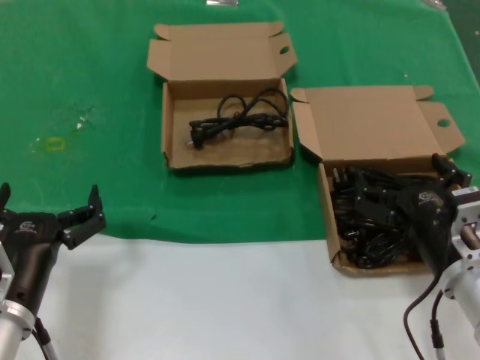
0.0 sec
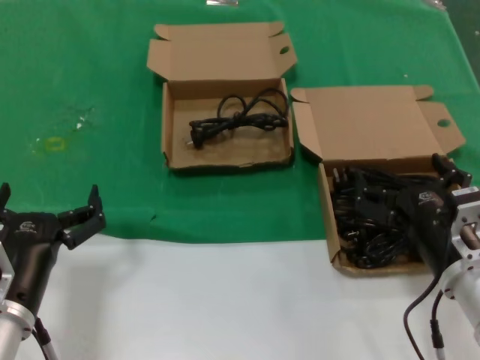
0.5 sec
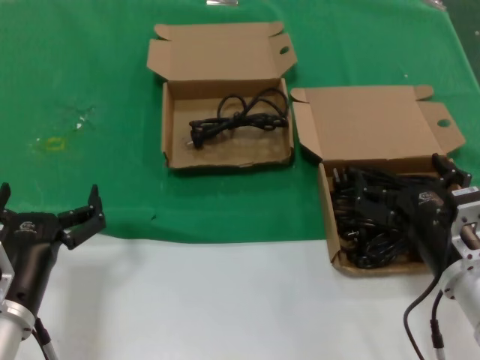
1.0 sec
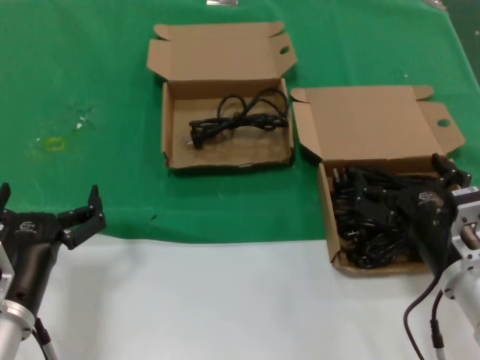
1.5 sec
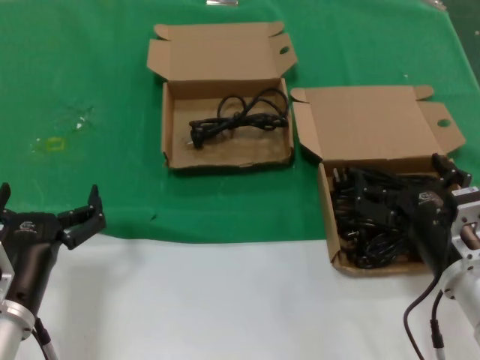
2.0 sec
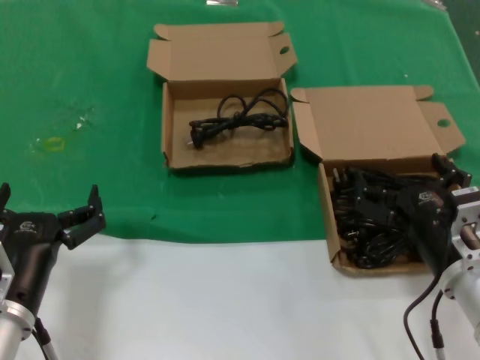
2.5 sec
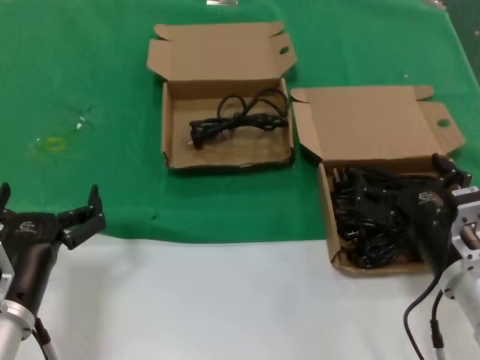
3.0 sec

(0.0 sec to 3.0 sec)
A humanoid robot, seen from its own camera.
Task of the whole recording: take the parts from the box containing them and put them into an empty box.
0.0 sec - 3.0 sec: The two hands keep their place.

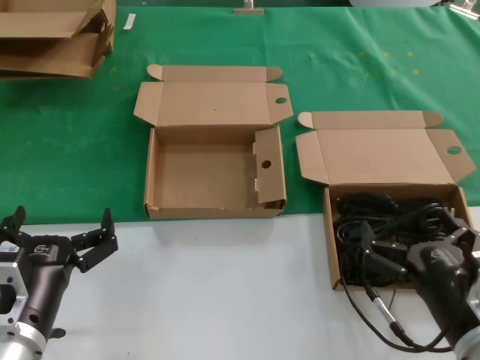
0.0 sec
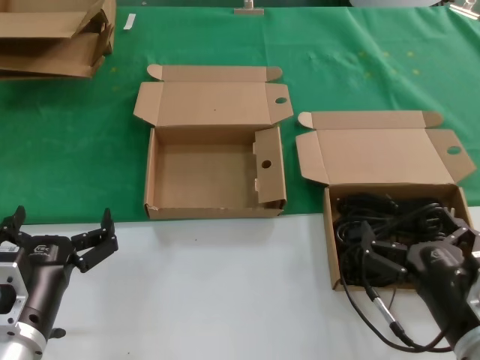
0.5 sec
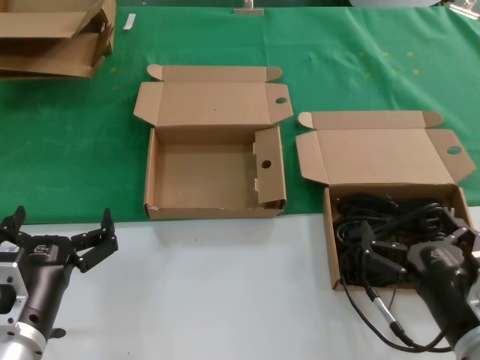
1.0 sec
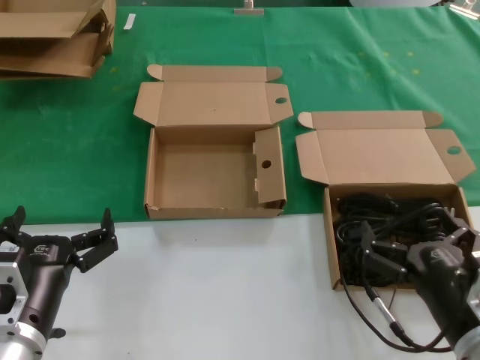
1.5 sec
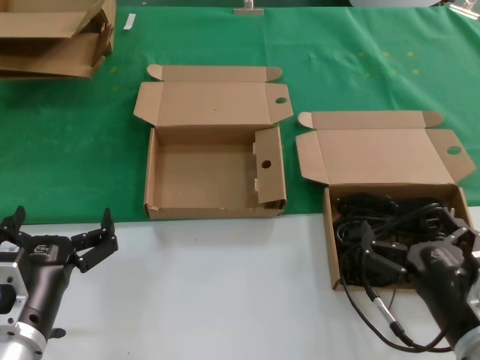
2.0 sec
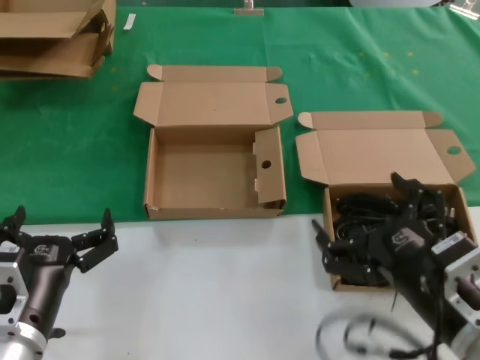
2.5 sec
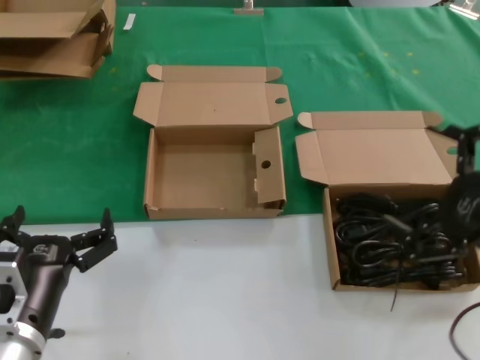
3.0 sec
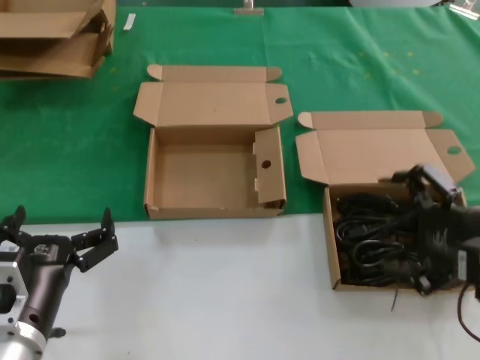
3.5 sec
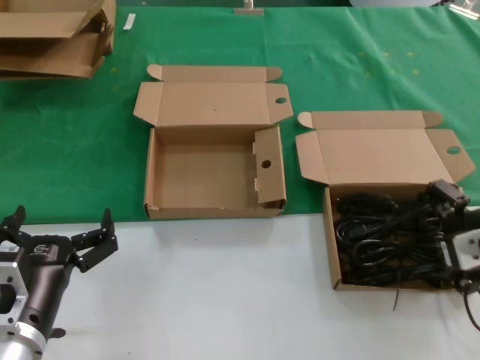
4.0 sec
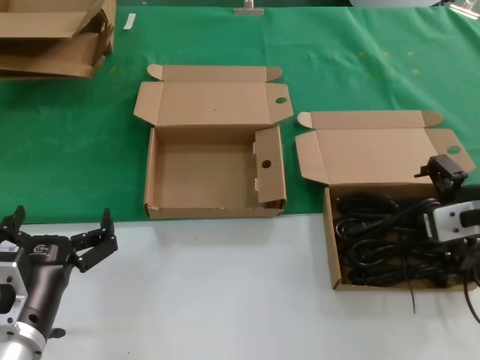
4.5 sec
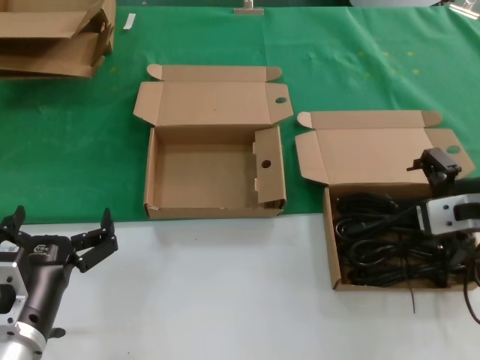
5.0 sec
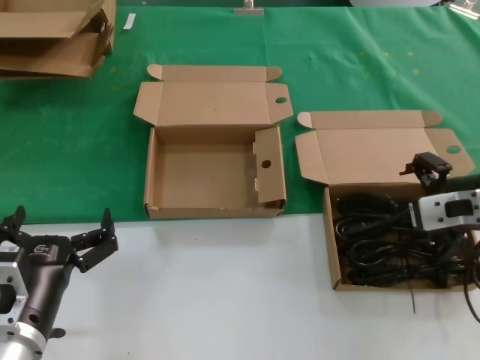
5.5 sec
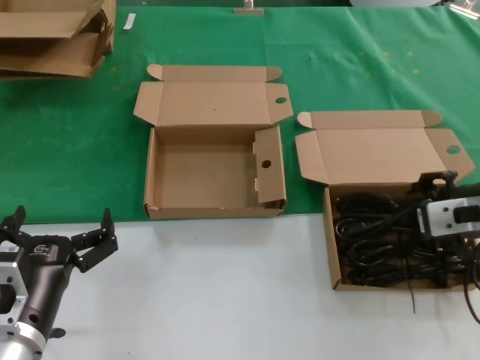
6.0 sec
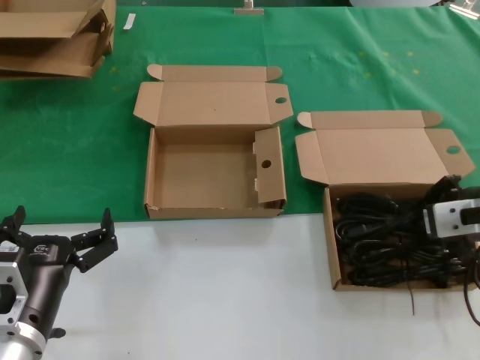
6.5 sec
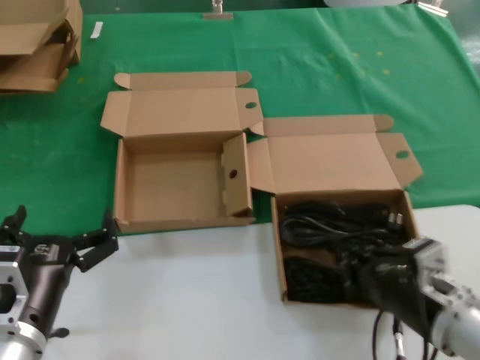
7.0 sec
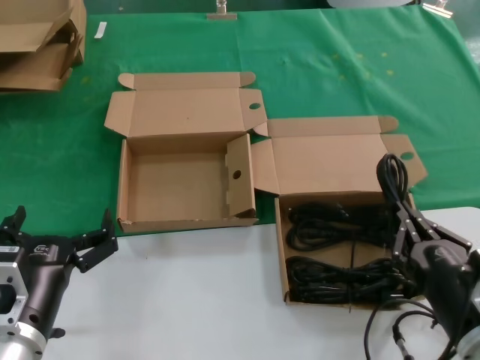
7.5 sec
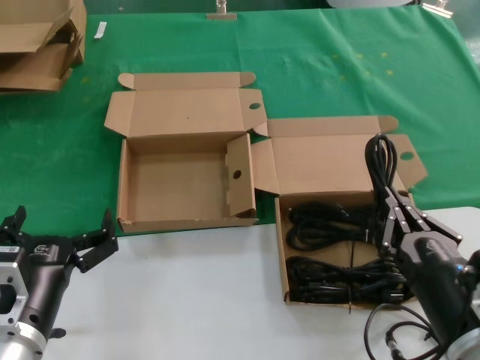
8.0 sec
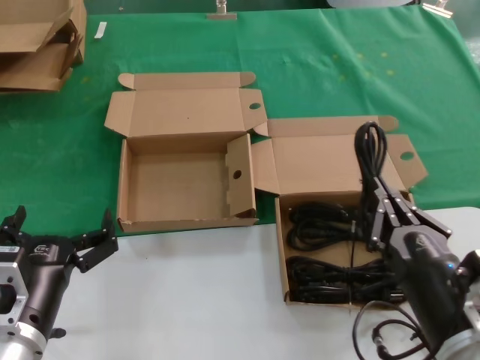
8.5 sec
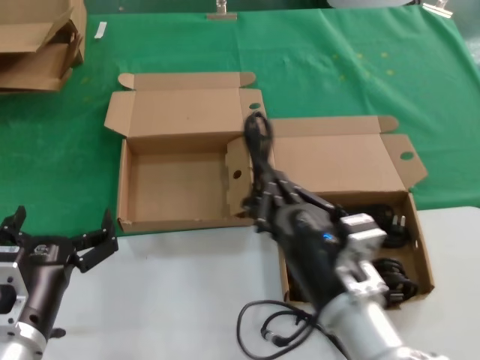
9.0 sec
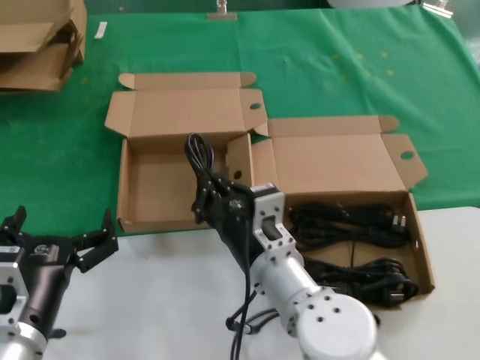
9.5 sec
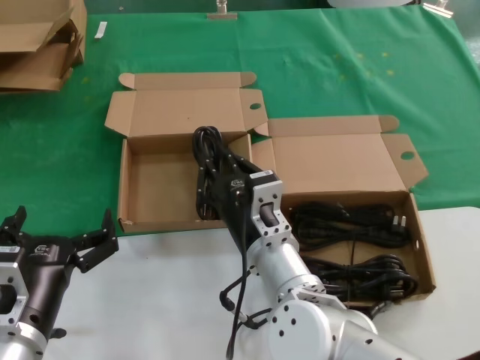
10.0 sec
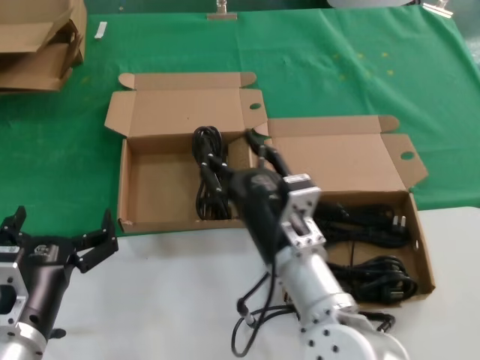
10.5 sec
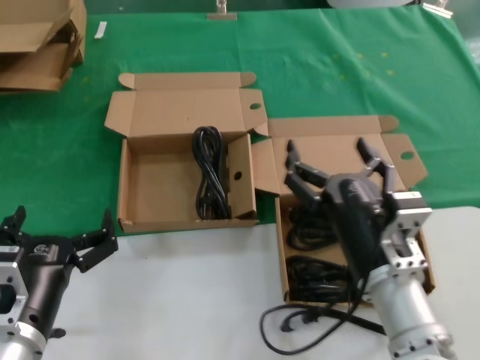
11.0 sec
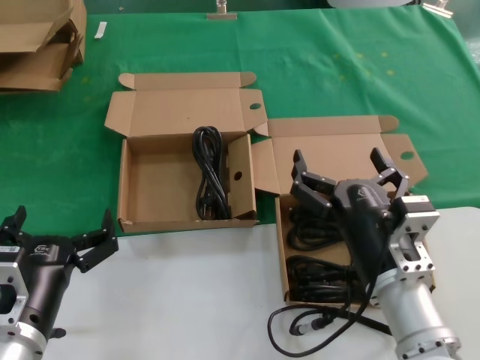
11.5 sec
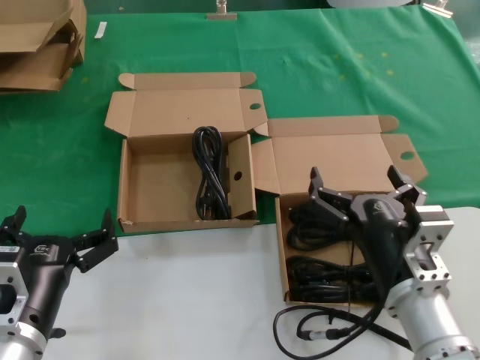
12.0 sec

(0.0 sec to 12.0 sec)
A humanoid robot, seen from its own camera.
Task of the whole recording: take the parts from the box containing them and put them into an empty box.
Step, 0.0 sec - 6.0 sec: Grasp the data cable.
Step, 7.0 sec - 9.5 sec: Place the data cable in the another box.
0.0 sec - 2.0 sec: Neither hand changes place.
2.0 sec - 4.0 sec: The right hand heads upward, forward and to the right, covering some 20 cm.
4.0 sec - 6.0 sec: The hands move only a little.
6.0 sec - 8.0 sec: The right hand heads downward and backward, covering about 20 cm.
8.0 sec - 10.0 sec: The right hand moves to the left and forward, some 25 cm.
10.0 sec - 12.0 sec: The right hand travels to the right and backward by some 15 cm.

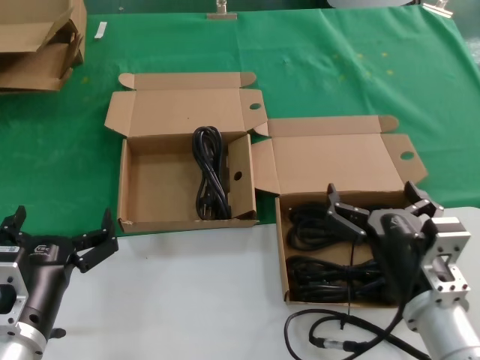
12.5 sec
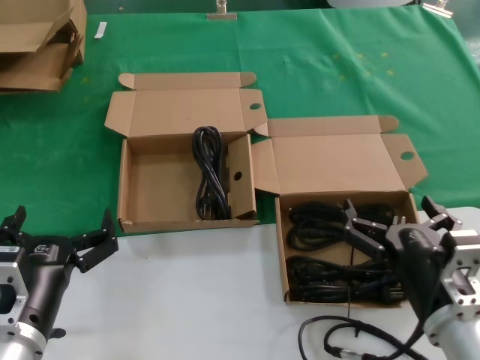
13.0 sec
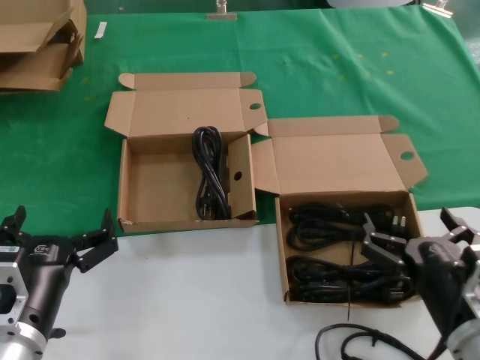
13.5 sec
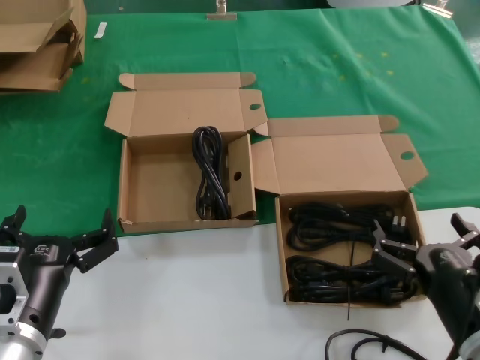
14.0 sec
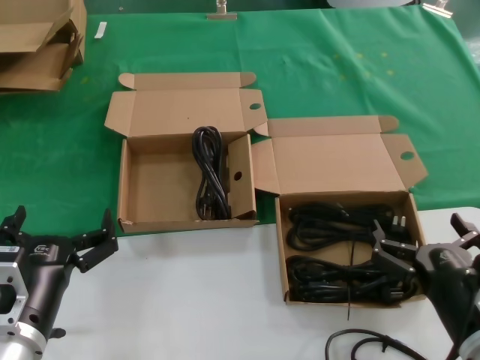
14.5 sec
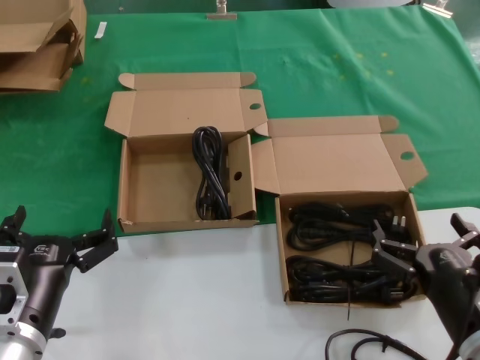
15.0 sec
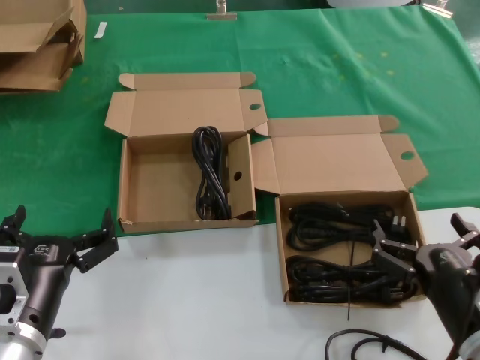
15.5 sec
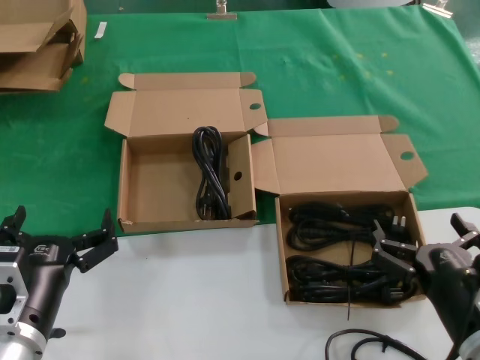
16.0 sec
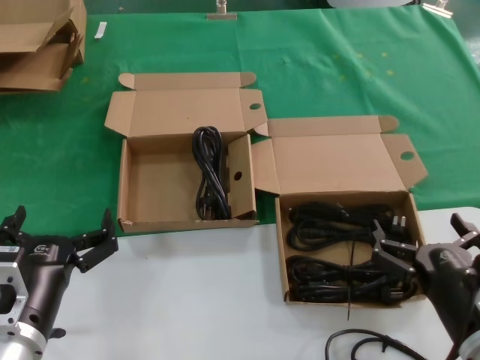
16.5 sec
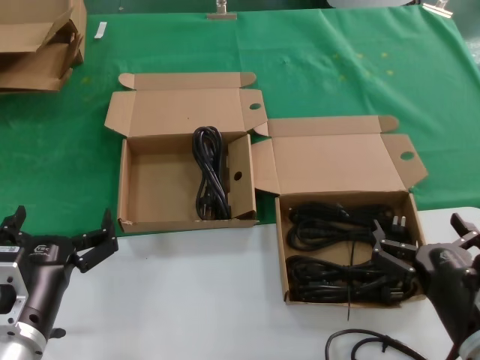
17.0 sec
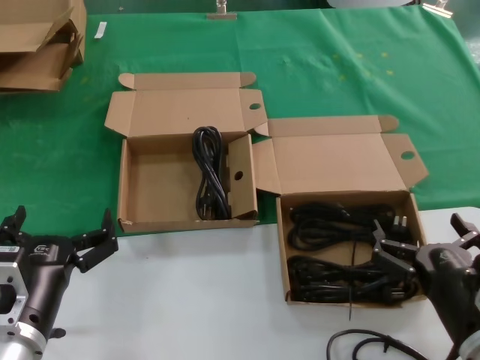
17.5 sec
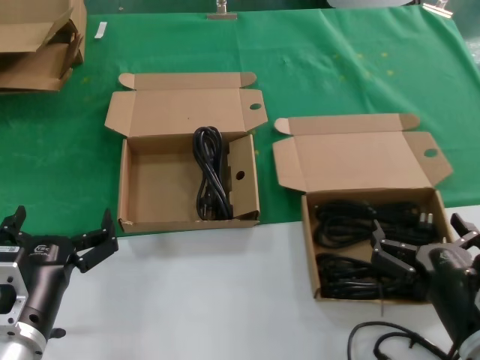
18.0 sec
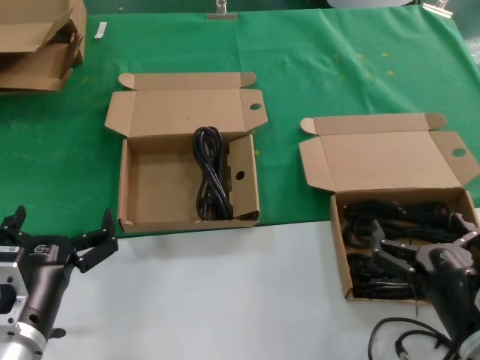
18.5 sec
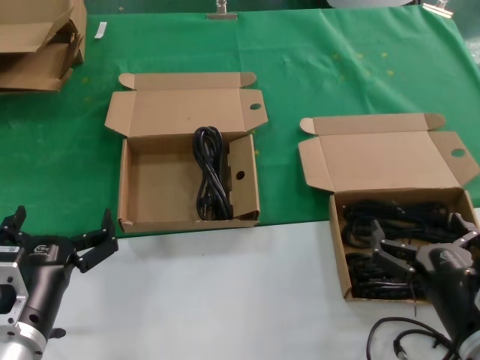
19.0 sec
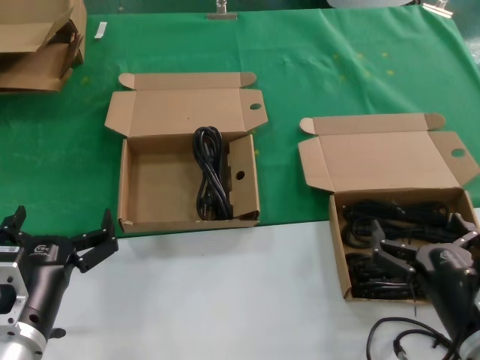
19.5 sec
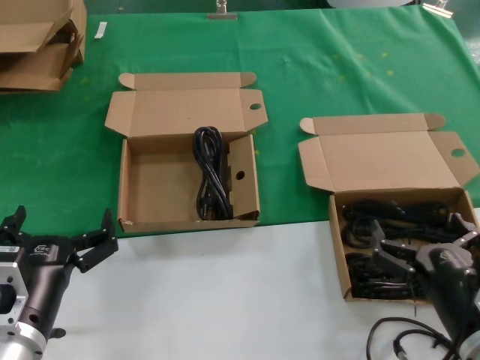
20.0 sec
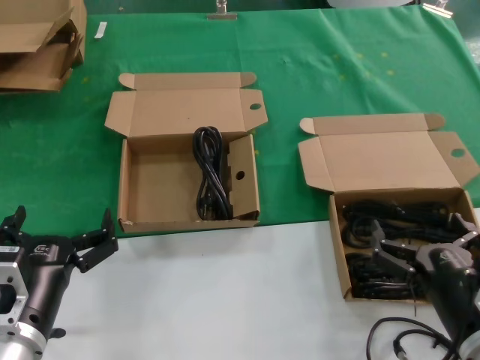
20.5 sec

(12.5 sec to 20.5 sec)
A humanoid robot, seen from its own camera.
Task of the whole recording: take the parts from the box containing them and put them into an empty box.
12.5 sec - 14.5 sec: The right hand travels to the right by roughly 5 cm.
14.5 sec - 20.5 sec: Both hands stay put.
